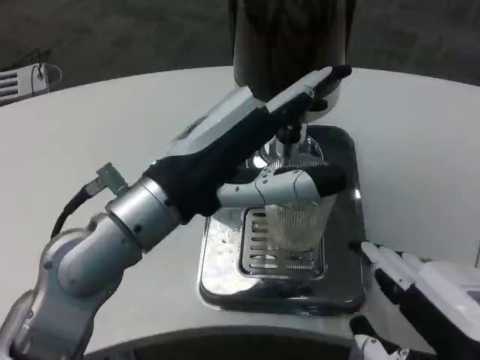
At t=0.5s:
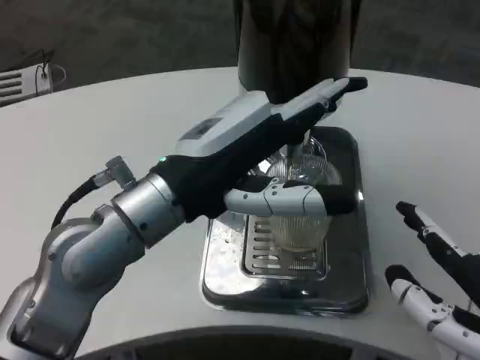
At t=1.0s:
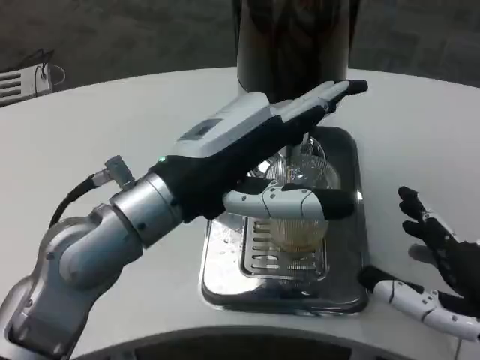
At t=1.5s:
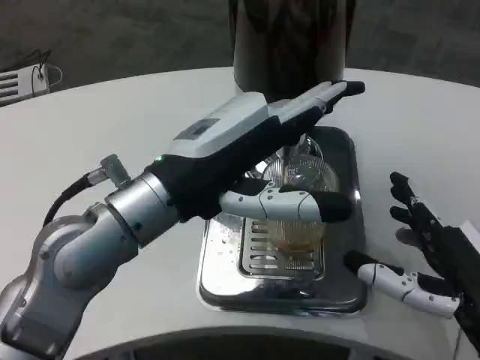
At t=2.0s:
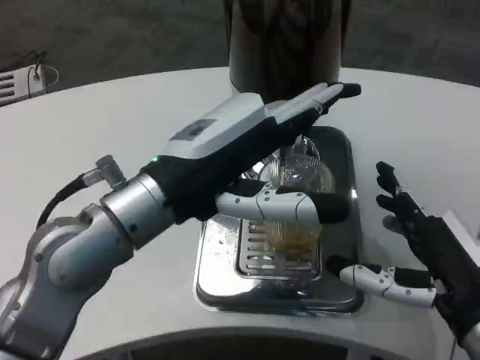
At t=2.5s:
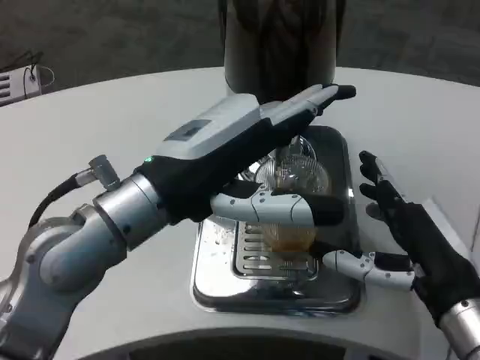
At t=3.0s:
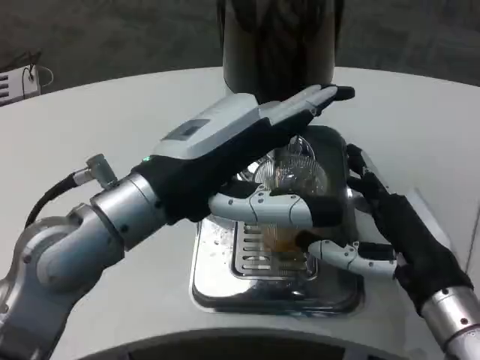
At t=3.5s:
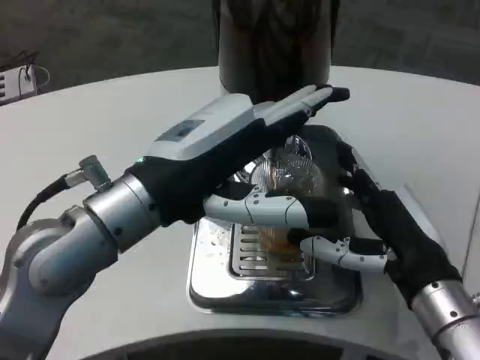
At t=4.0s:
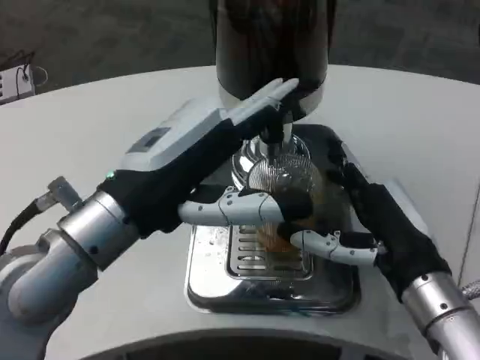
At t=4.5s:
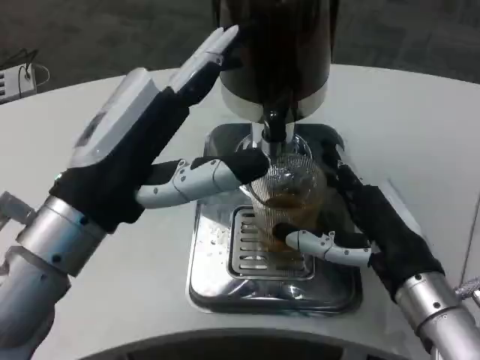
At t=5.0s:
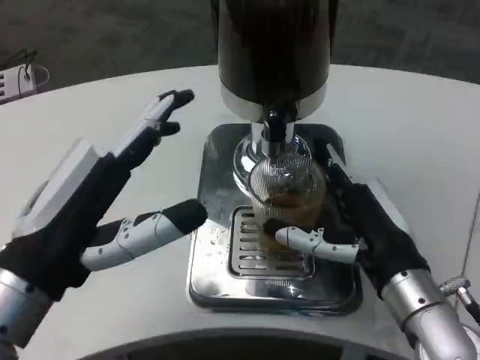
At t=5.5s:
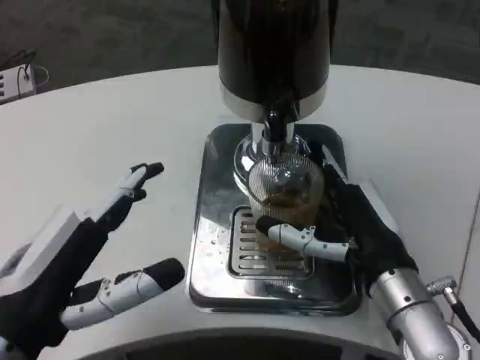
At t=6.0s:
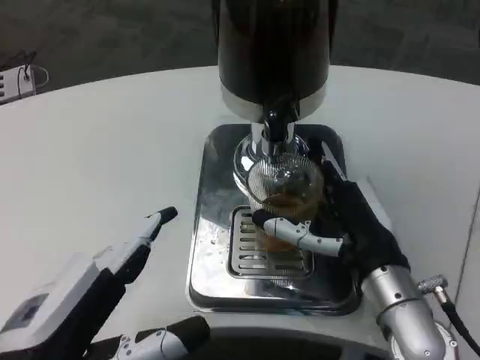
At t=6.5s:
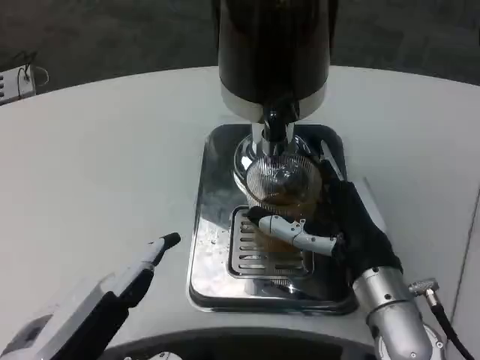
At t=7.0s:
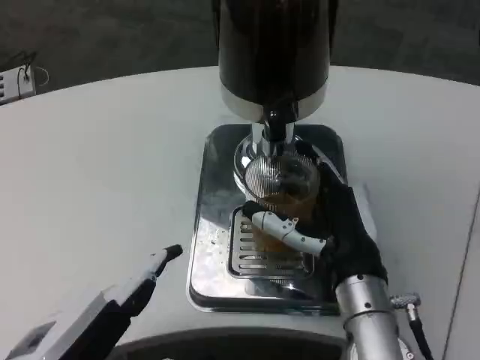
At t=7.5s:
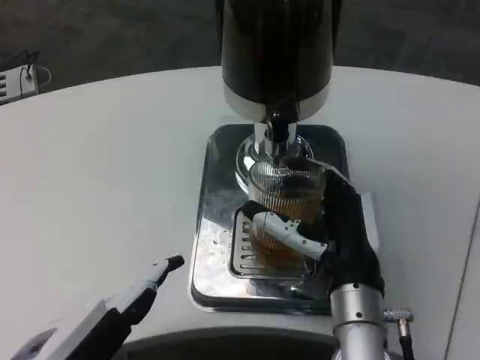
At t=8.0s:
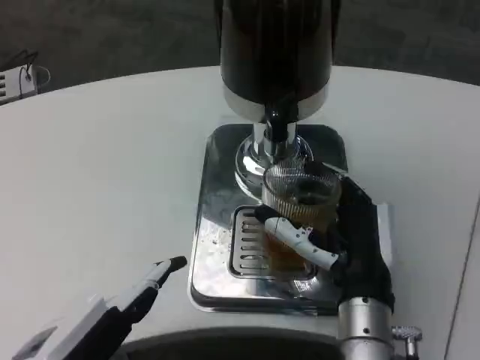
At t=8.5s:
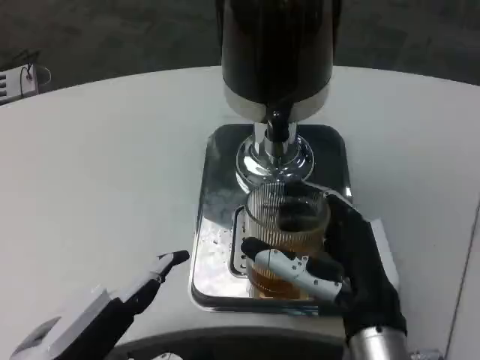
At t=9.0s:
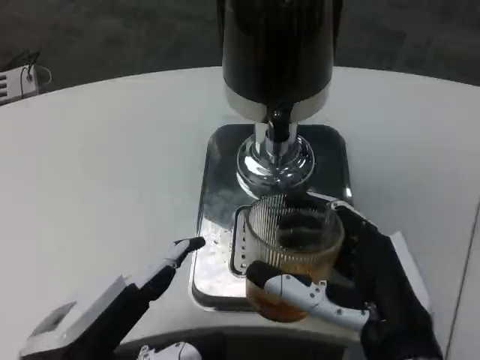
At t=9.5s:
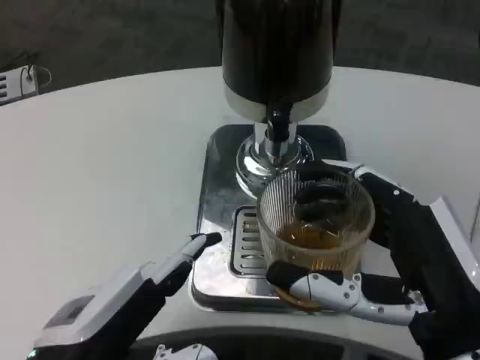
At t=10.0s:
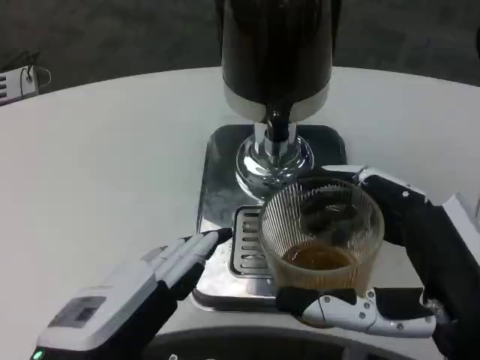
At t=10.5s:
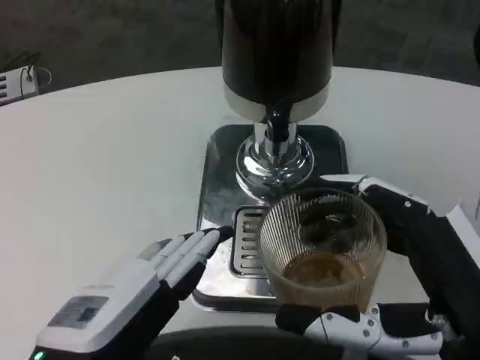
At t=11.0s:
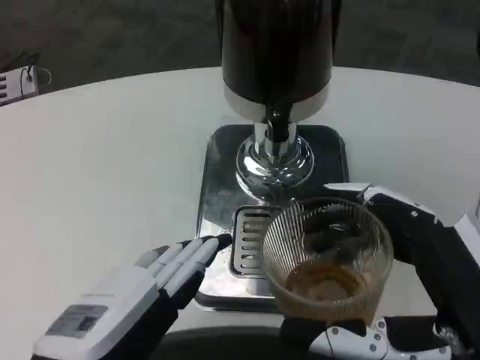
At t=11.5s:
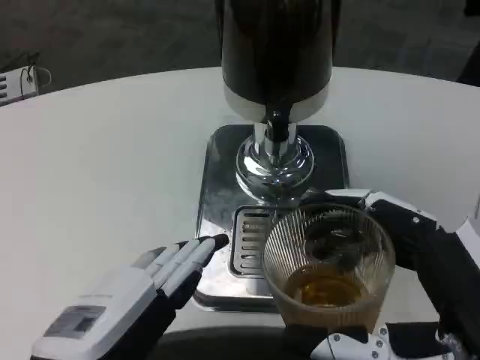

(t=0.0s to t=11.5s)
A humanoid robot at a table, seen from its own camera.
Task of the whole recording: Grasp the cup under the faucet to collect the drink, then remove the cup.
t=0.0s - t=2.0s: The right hand shifts some 10 cm forward and downward.
t=2.0s - t=4.0s: The right hand shifts by about 5 cm.
t=4.0s - t=6.0s: The left hand shifts about 15 cm backward and downward.
t=6.0s - t=7.5s: The right hand travels to the left by some 5 cm.
t=7.5s - t=9.5s: The right hand moves backward and to the right, approximately 15 cm.
t=9.5s - t=11.5s: There are only small adjustments of the hands.

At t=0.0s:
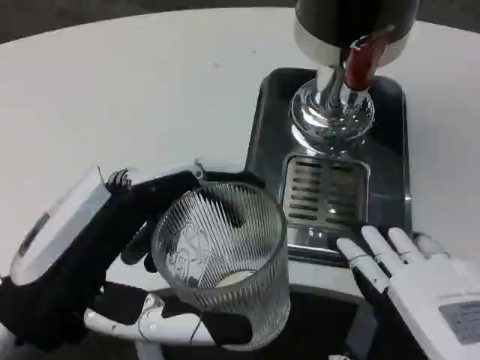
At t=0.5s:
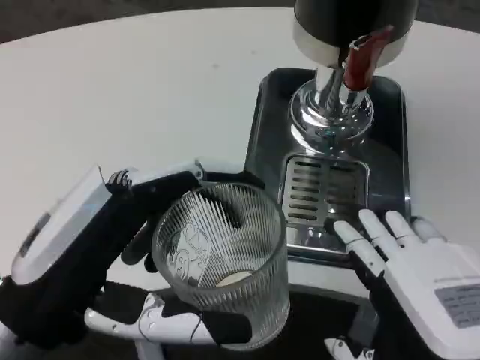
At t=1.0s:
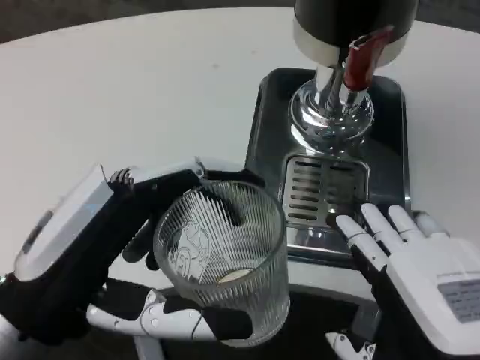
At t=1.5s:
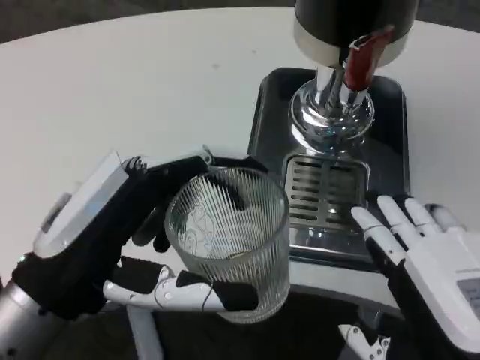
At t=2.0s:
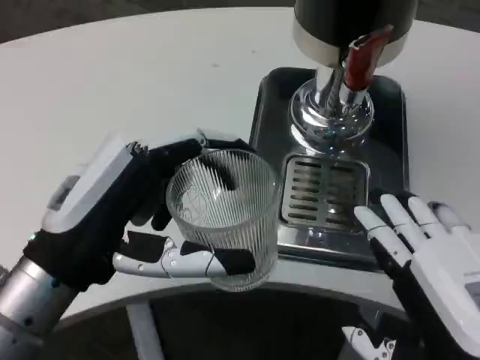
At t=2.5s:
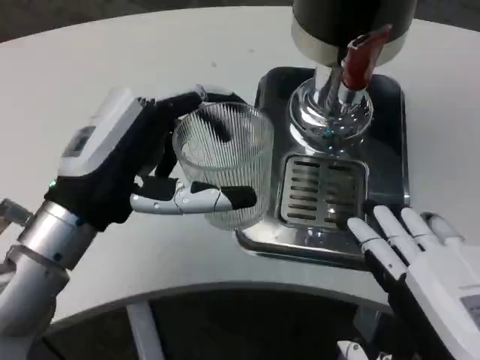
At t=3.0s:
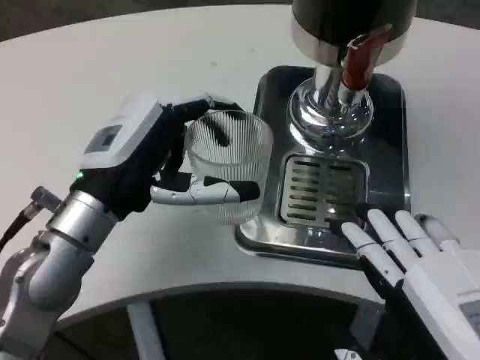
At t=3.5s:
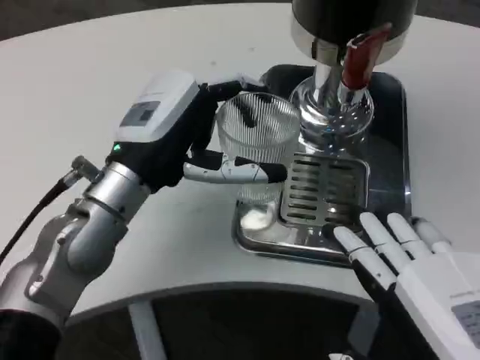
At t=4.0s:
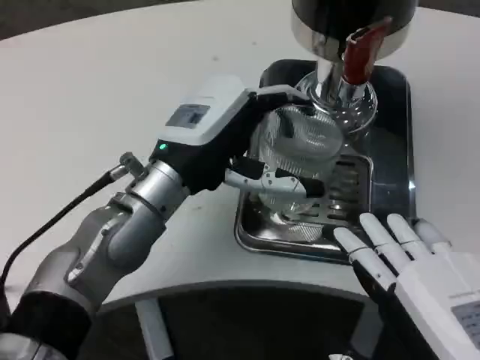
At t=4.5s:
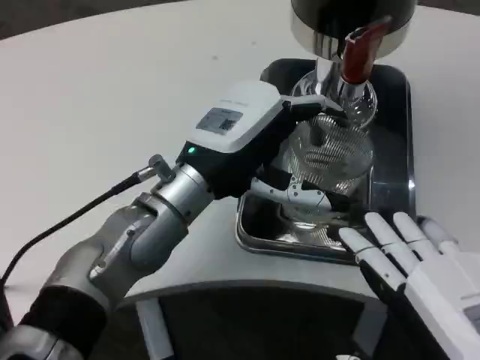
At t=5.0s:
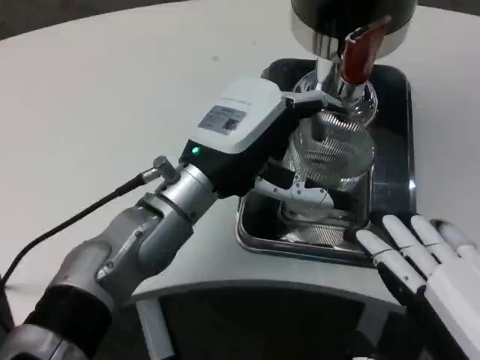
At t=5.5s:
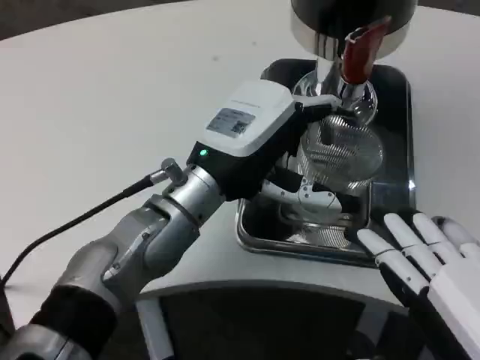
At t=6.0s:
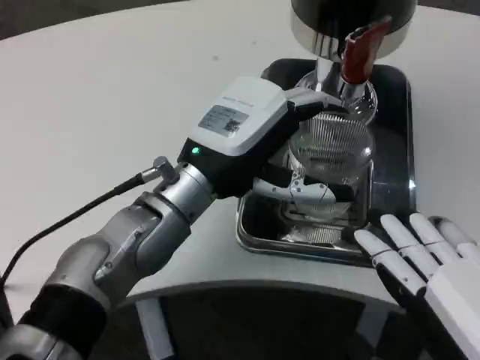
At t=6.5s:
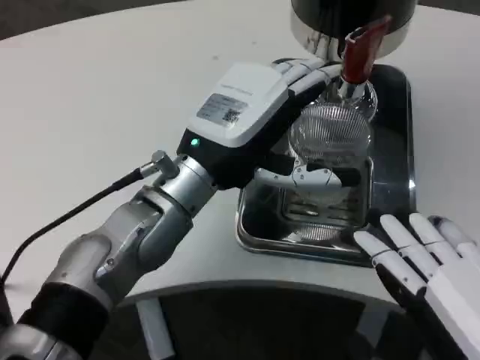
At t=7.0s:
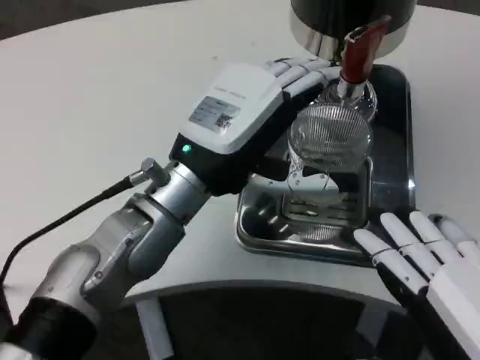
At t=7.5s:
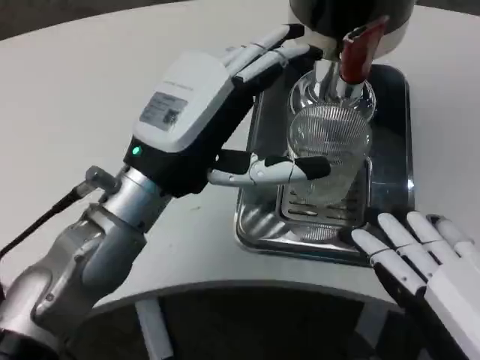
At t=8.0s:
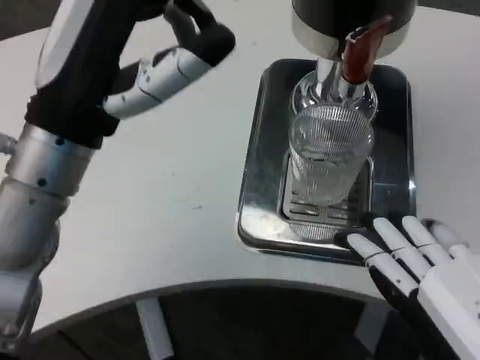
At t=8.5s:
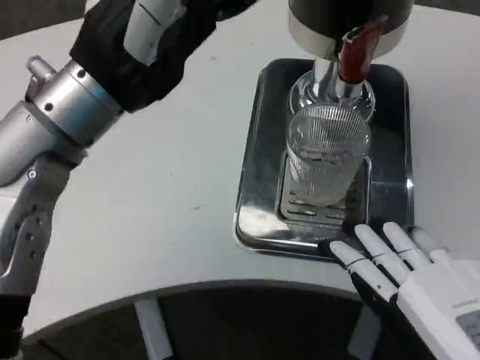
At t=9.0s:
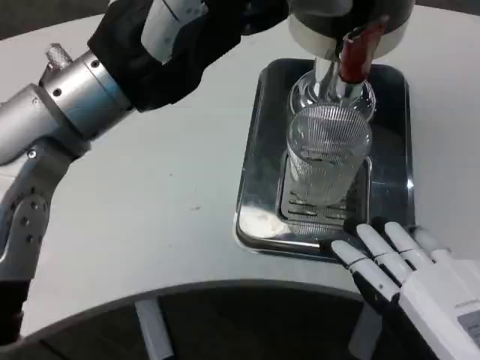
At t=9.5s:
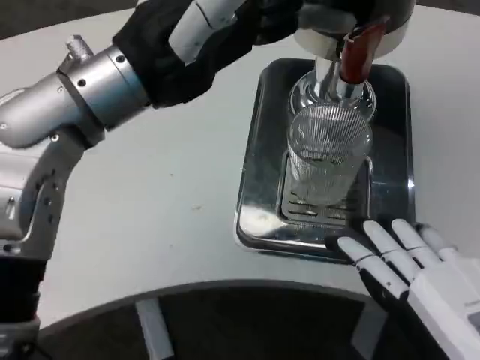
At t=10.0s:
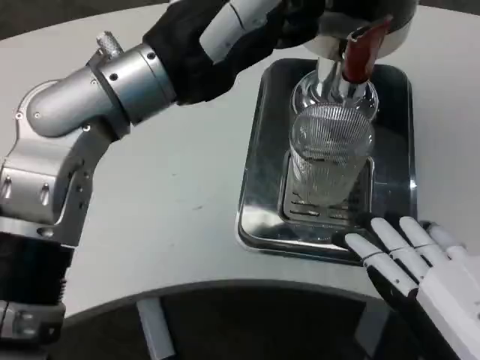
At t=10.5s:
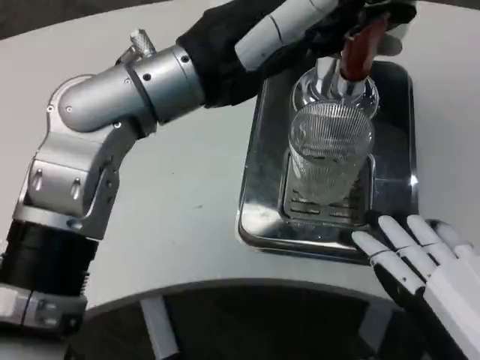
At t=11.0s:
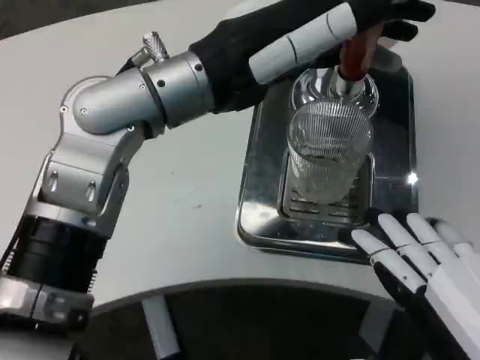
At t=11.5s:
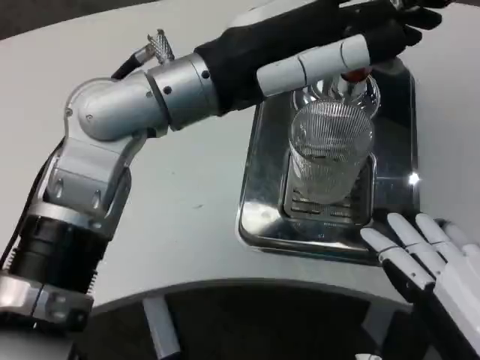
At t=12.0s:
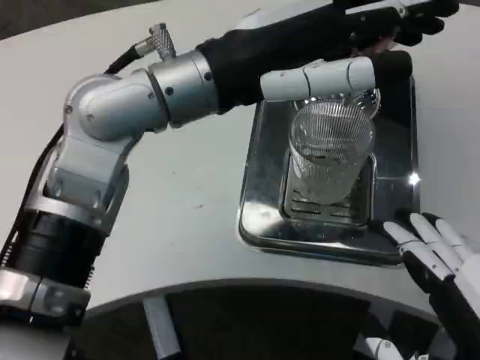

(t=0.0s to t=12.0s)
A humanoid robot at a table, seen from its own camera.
Task of the whole recording: Grasp the cup under the faucet to collect the drink, then remove the cup.
t=2.0s - t=4.0s: The left hand is displaced forward and to the right by about 15 cm.
t=6.0s - t=8.0s: The left hand travels to the left, upward and backward by approximately 10 cm.
t=8.0s - t=10.0s: The left hand travels upward by approximately 5 cm.

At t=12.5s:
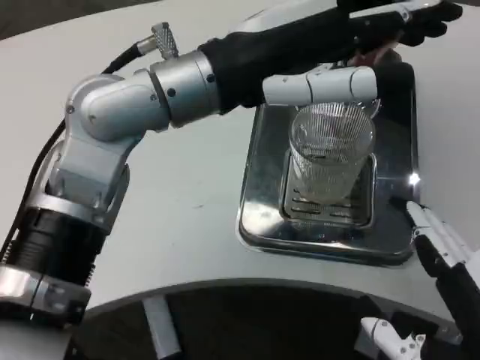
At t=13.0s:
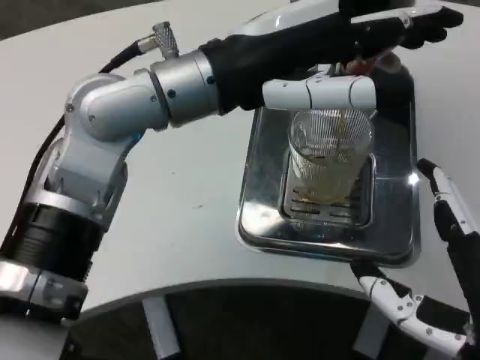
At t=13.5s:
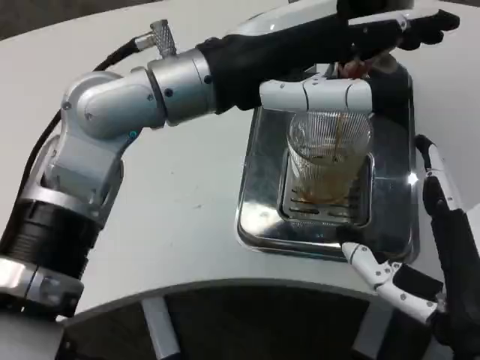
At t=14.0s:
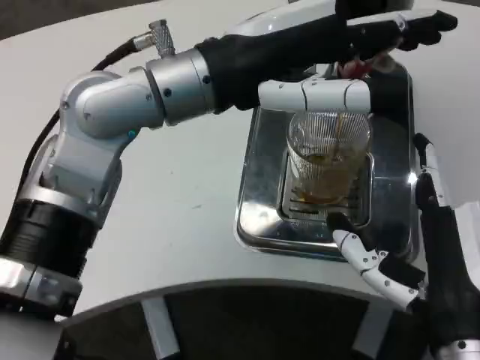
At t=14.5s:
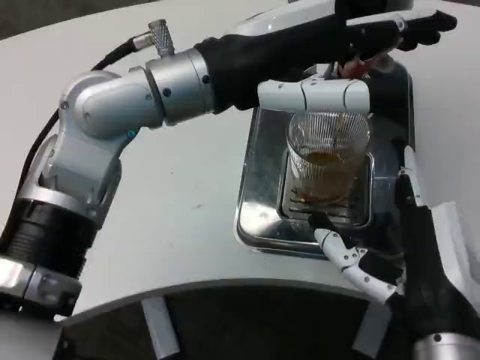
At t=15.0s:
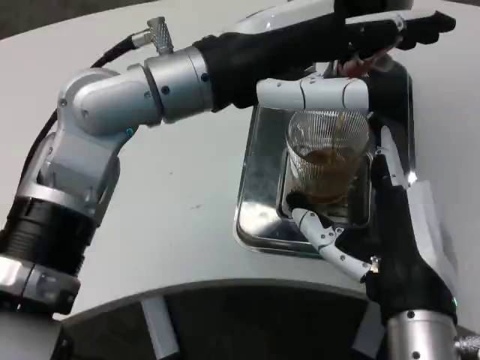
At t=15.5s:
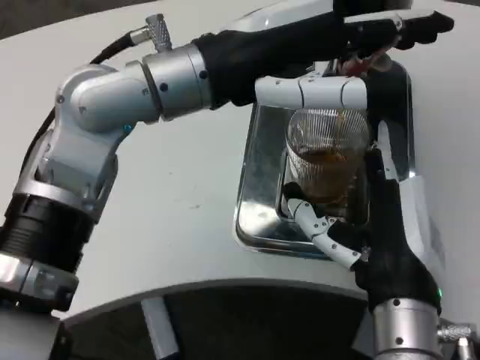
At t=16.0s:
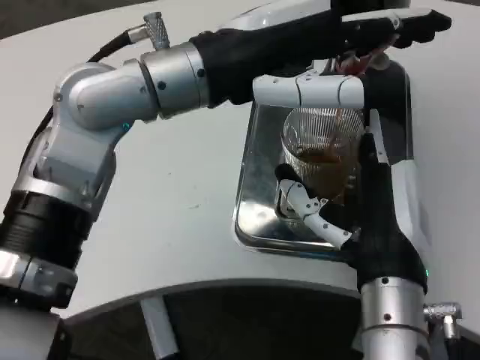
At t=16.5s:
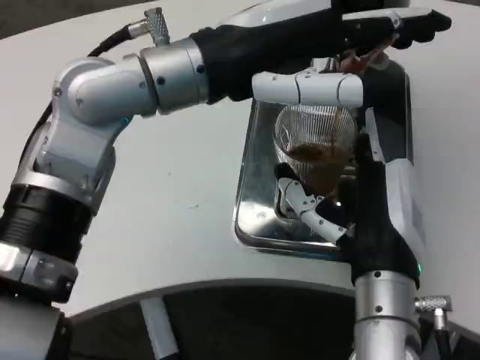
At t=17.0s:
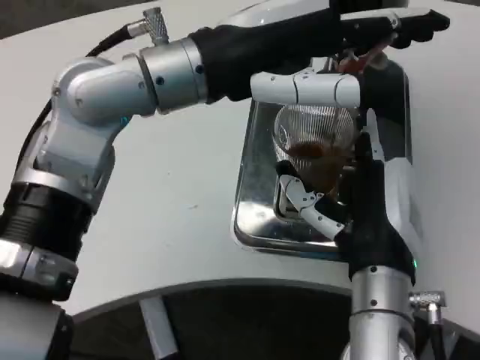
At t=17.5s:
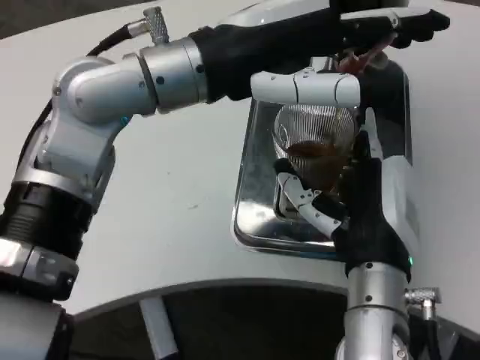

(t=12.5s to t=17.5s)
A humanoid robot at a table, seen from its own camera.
Task of the whole recording: Grasp the cup under the faucet to collect the drink, then remove the cup.
t=12.5s - t=15.0s: The right hand travels forward and to the left by about 10 cm.
t=15.0s - t=17.5s: The right hand goes about 5 cm forward.
